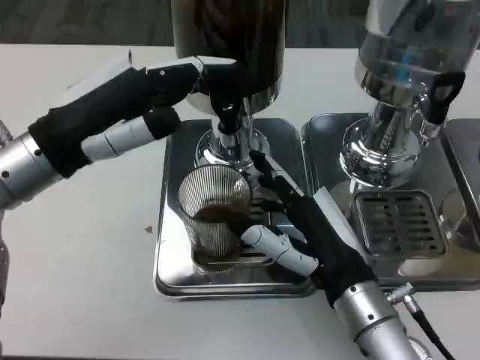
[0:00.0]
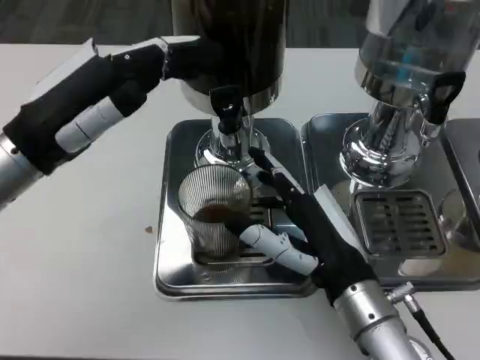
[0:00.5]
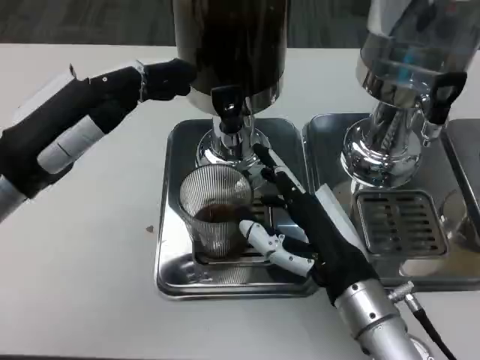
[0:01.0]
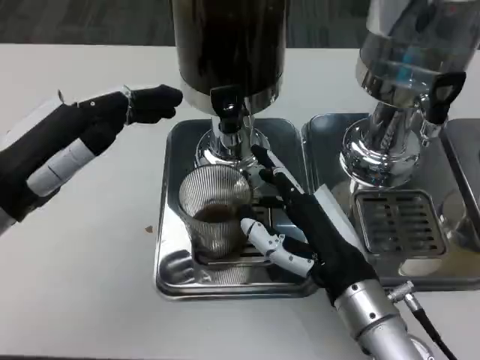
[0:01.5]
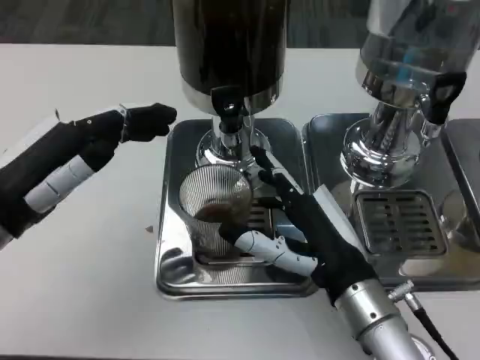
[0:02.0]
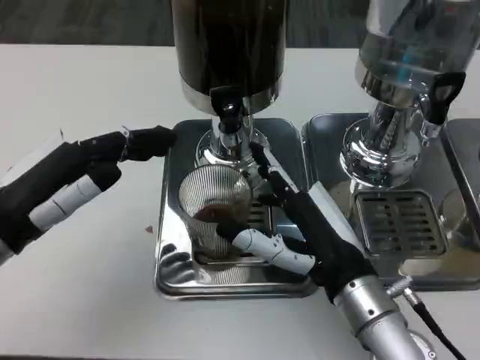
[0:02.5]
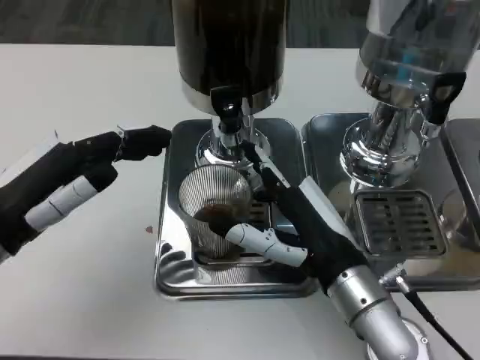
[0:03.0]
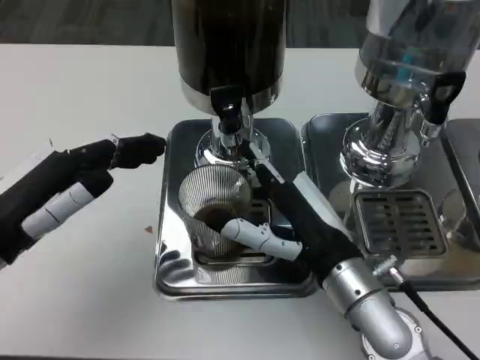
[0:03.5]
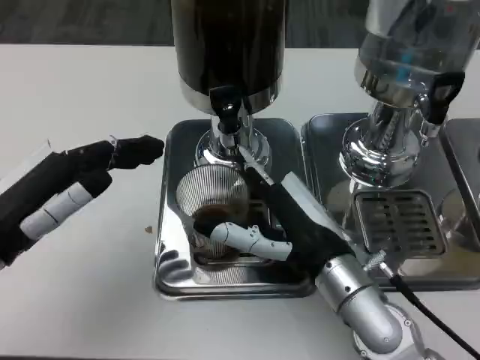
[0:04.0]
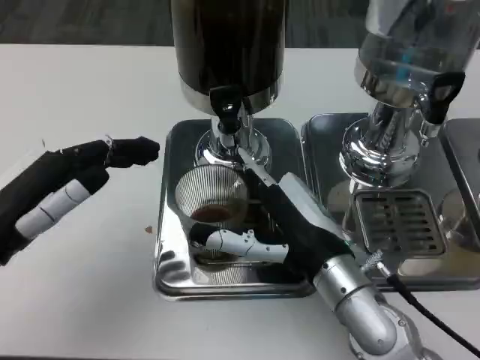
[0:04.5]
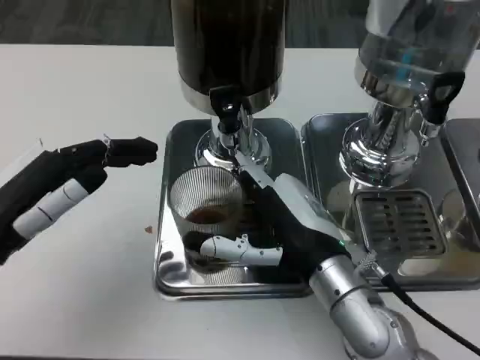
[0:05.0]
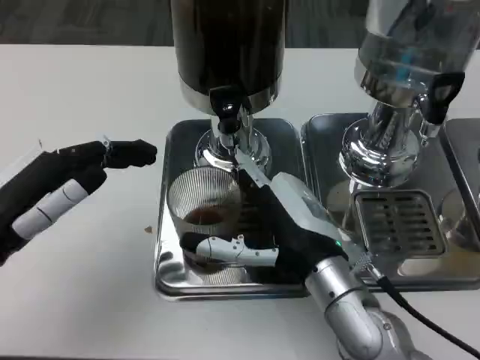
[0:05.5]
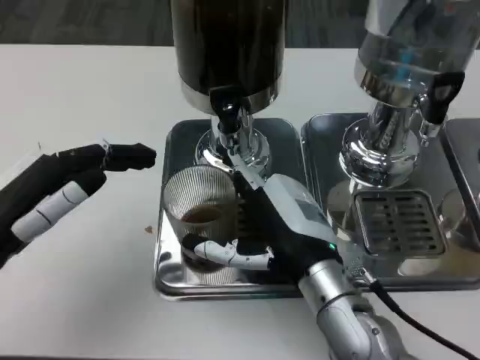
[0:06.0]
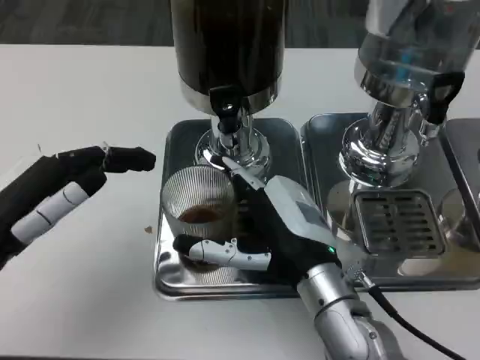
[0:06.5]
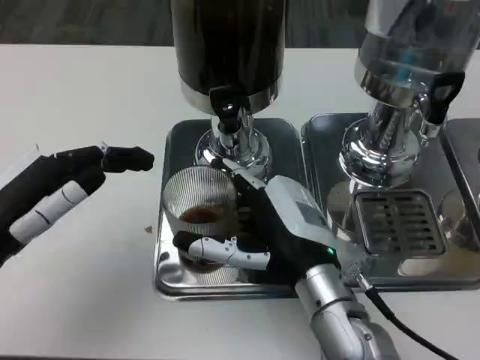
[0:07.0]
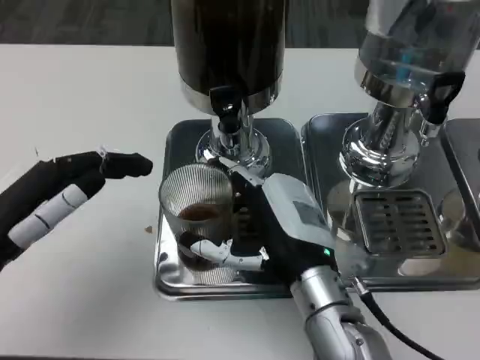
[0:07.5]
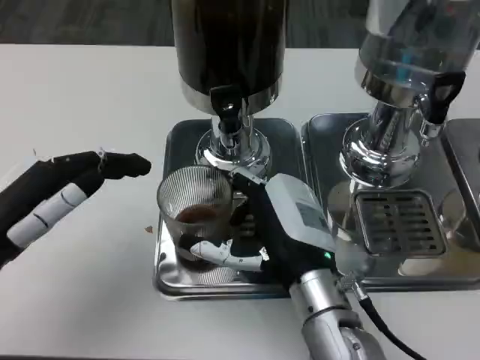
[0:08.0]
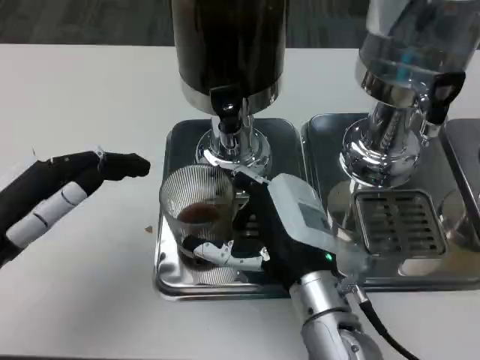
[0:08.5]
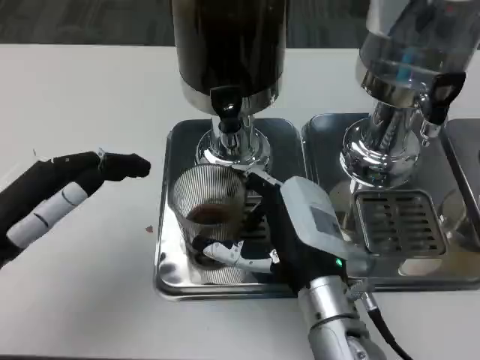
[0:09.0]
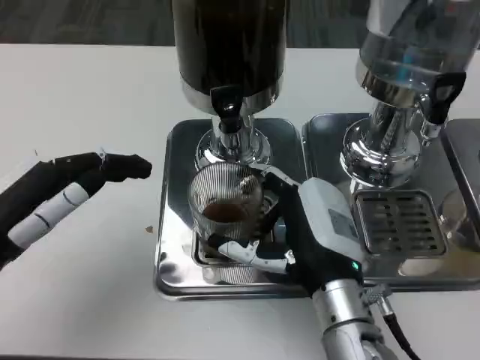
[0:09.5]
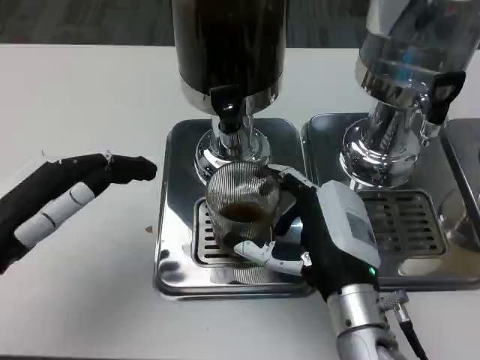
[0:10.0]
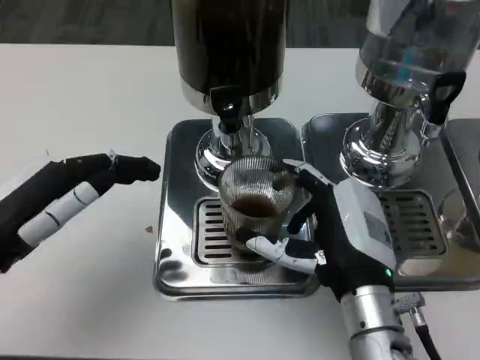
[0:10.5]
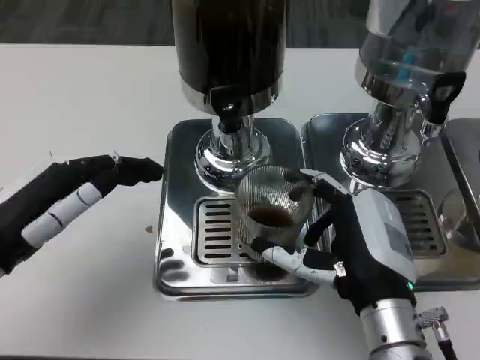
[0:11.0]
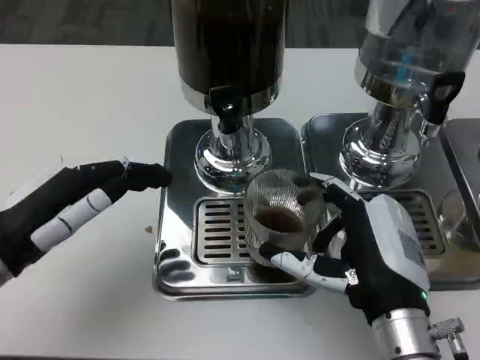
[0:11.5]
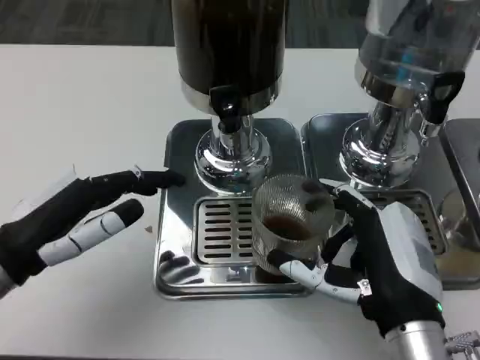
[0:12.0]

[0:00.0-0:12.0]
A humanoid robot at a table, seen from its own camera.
Task of the whole recording: Grasp the cup under the faucet to collect the drink, then remove the cup.
0:00.0 to 0:02.0: The left hand changes place by about 10 cm.
0:02.0 to 0:04.0: The hands stay close to where they were, moving slightly.
0:04.0 to 0:08.0: The hands stay close to where they were, moving slightly.
0:10.0 to 0:12.0: The right hand changes place by some 5 cm.

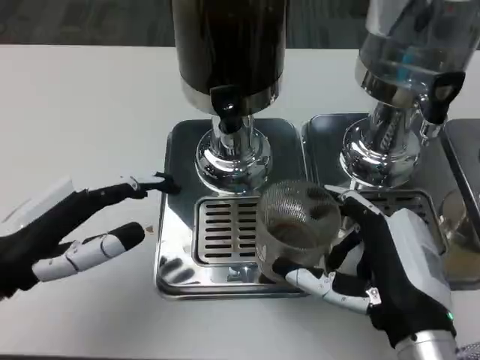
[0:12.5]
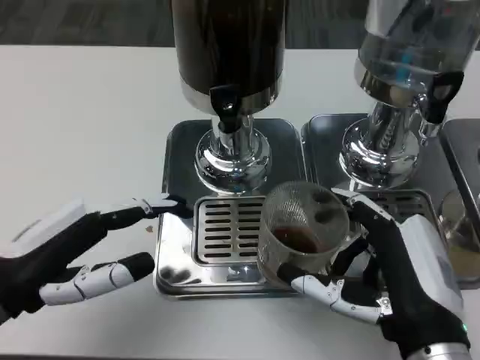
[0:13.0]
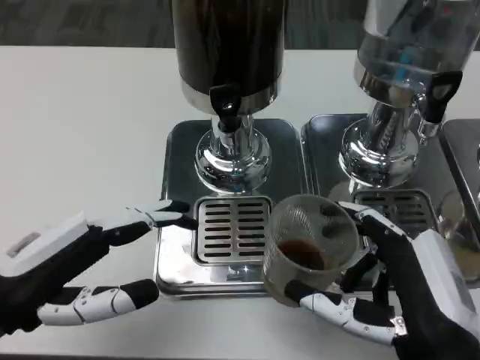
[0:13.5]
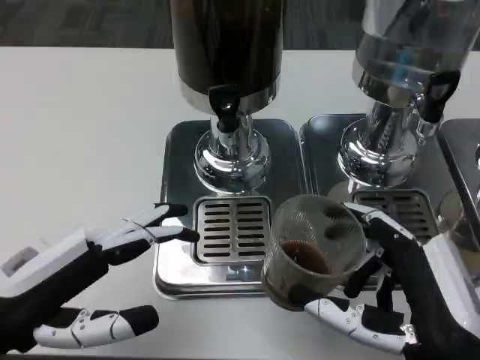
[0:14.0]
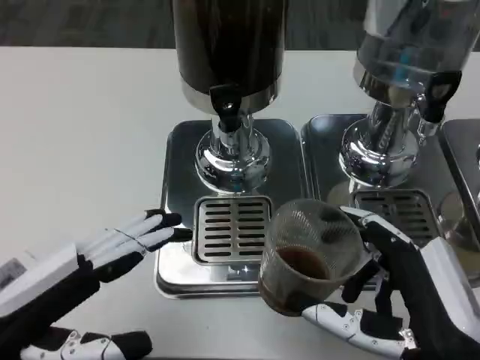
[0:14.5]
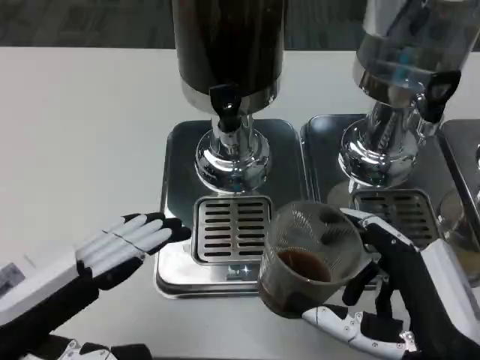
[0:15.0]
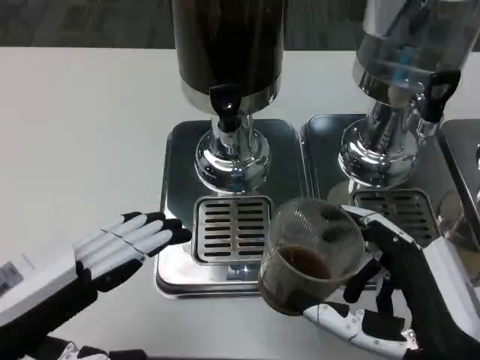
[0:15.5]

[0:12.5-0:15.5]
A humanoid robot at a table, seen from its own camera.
Task of the whole recording: Grasp the cup under the faucet to collect the drink, then remove the cup.
0:12.5 to 0:14.0: The right hand changes place by some 5 cm.
0:14.0 to 0:15.5: The hands make only small movements.

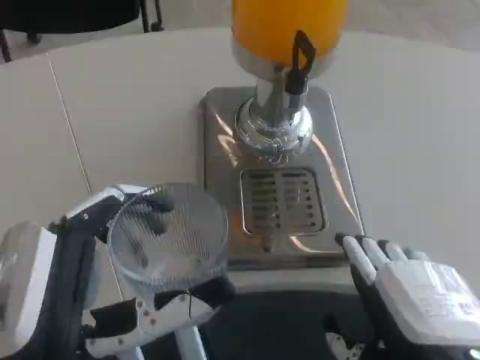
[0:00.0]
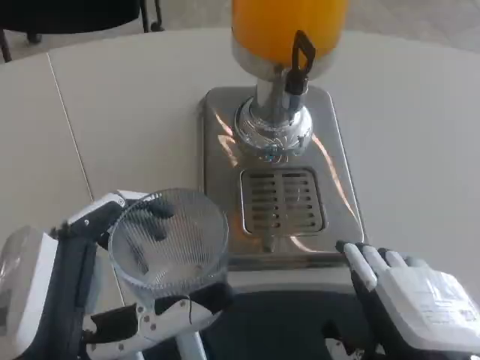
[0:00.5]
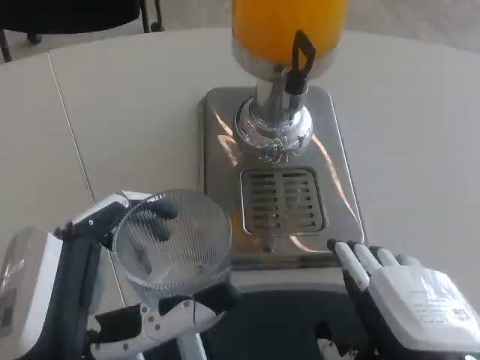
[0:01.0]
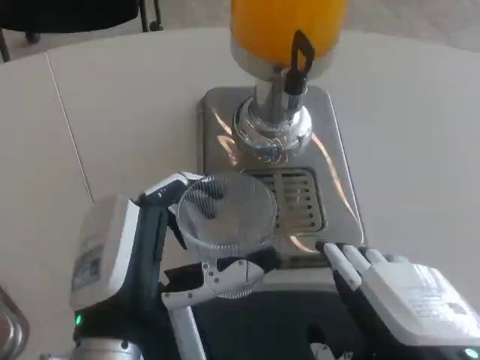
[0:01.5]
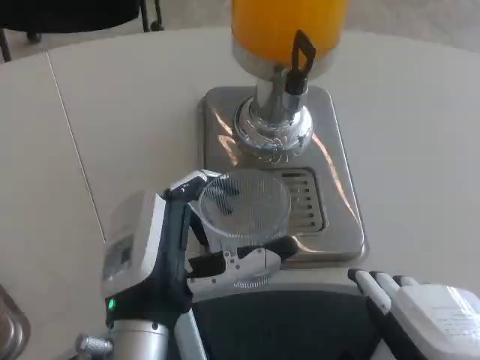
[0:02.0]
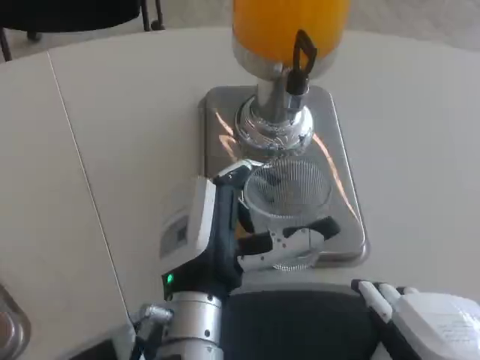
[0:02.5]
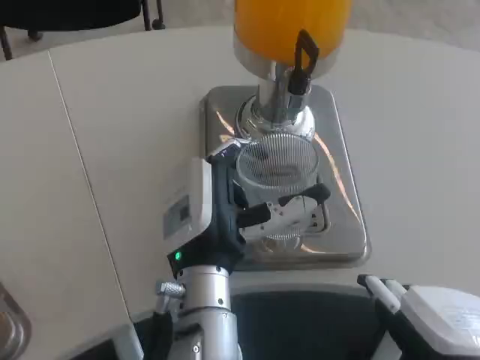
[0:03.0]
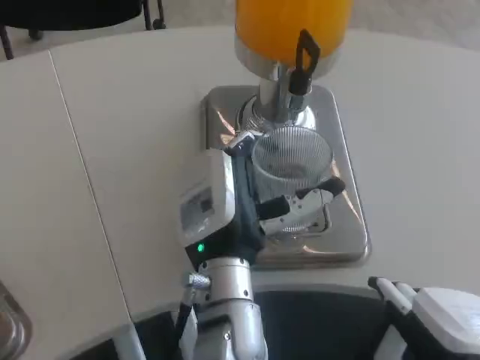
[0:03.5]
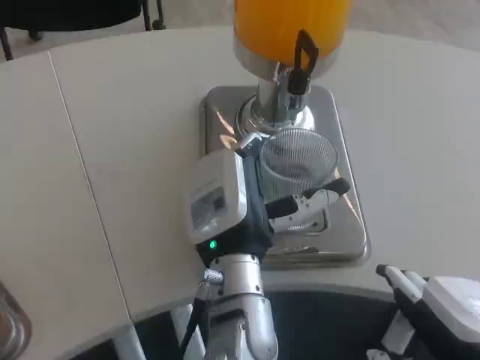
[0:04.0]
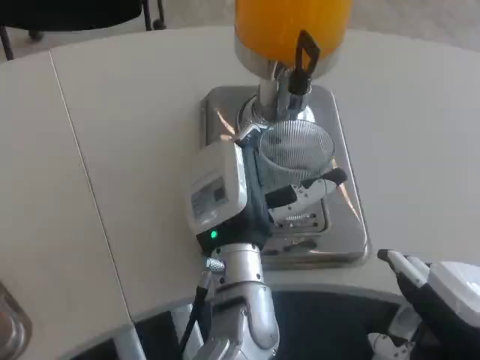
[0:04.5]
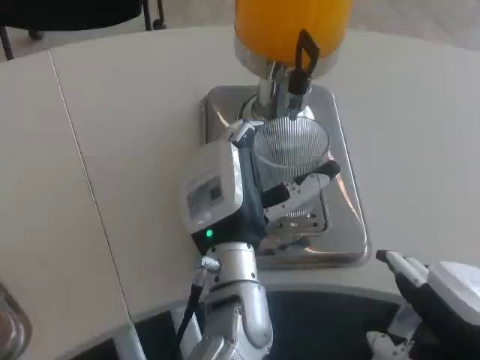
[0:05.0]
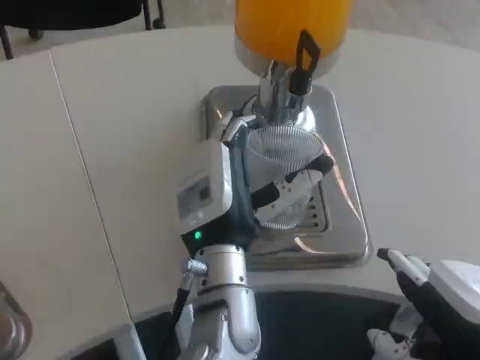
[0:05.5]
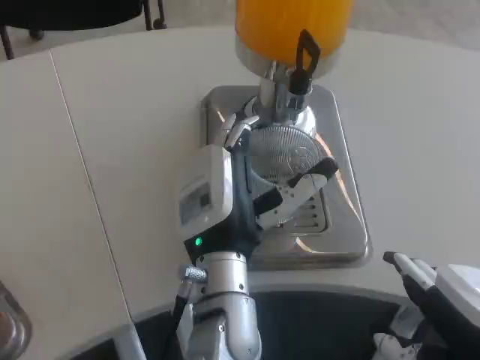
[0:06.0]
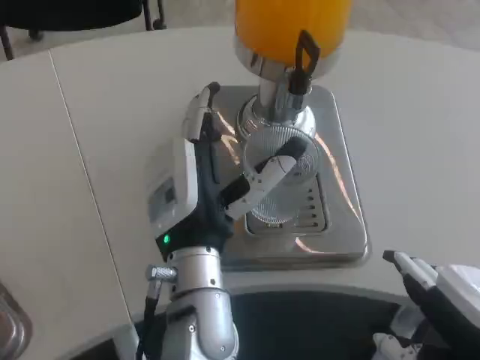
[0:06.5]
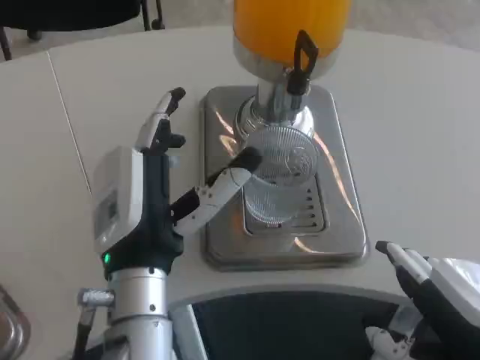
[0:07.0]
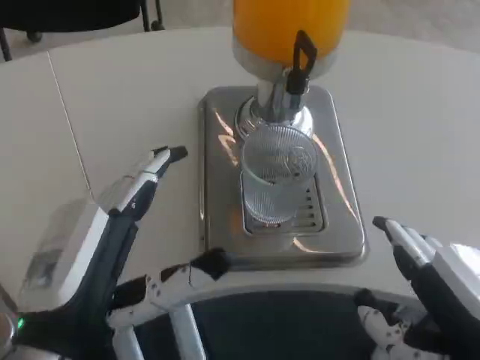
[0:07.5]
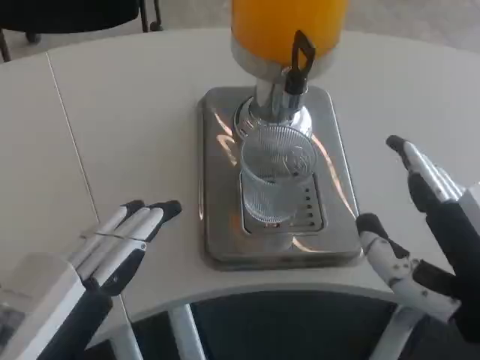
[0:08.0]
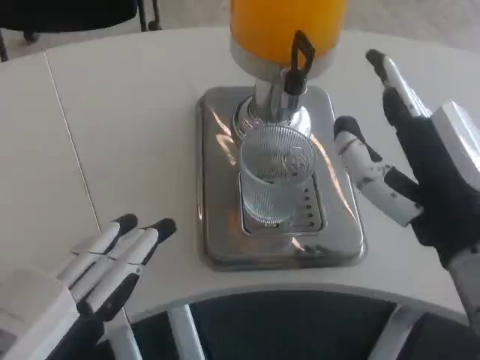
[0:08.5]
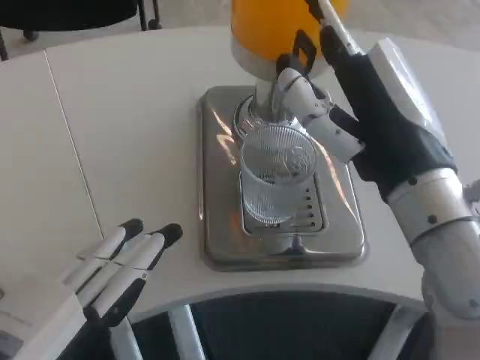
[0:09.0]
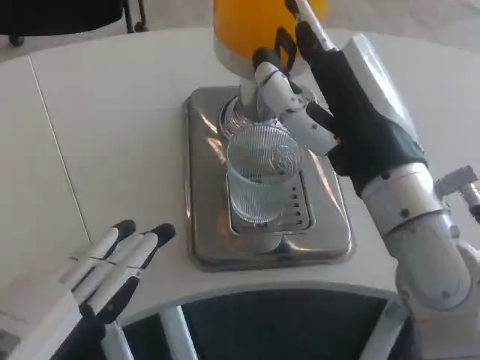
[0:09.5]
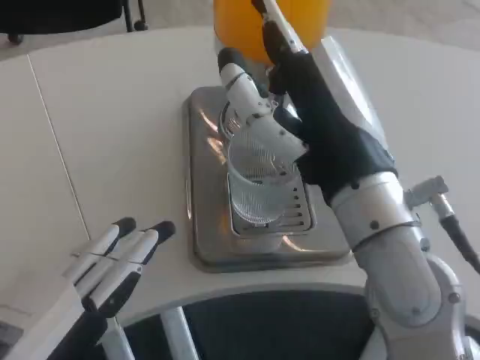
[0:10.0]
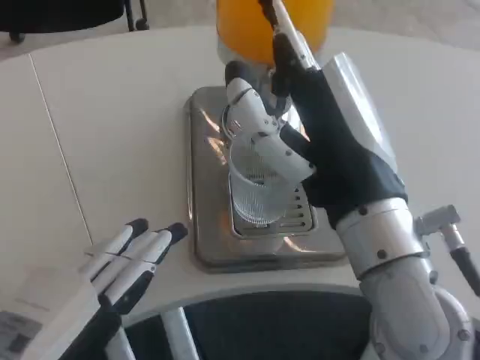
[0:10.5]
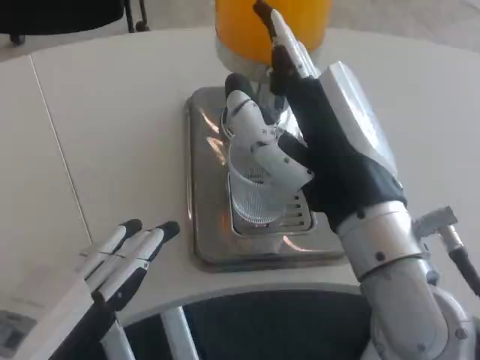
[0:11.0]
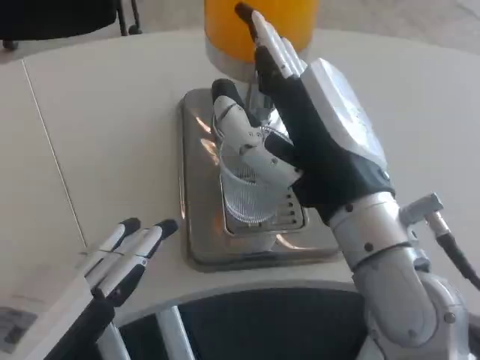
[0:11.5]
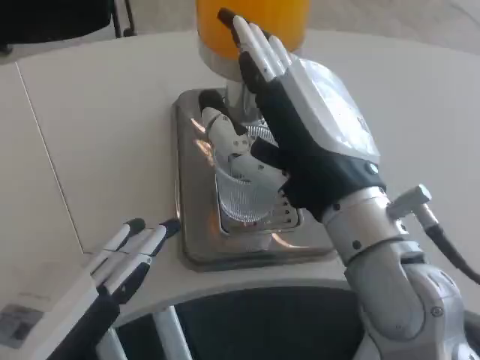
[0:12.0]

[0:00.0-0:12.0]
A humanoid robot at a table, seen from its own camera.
Task of the whole recording: Grasp the cup under the faucet to collect the drink, then remove the cup.
0:00.0 to 0:02.0: The left hand travels forward and to the right by some 10 cm.
0:02.0 to 0:04.0: The left hand is displaced to the right and forward by approximately 10 cm.
0:04.0 to 0:06.0: There are only small adjustments of the hands.
0:06.0 to 0:08.0: The left hand is displaced to the left and backward by some 25 cm.
0:08.0 to 0:10.0: The right hand goes approximately 15 cm forward and to the left.
